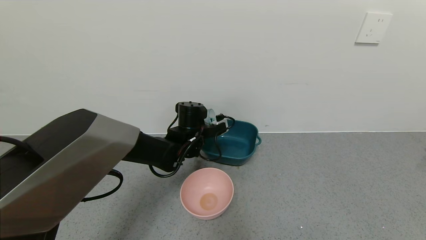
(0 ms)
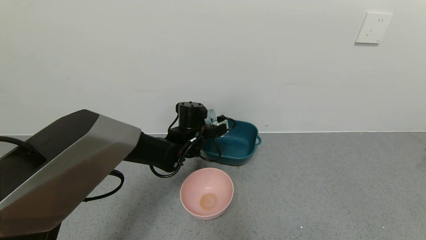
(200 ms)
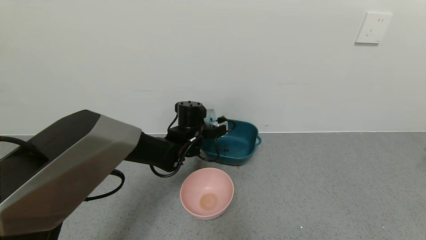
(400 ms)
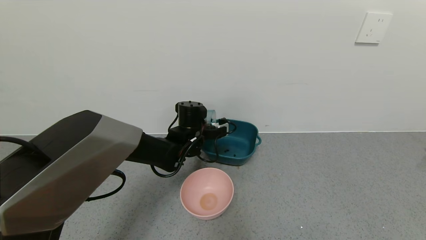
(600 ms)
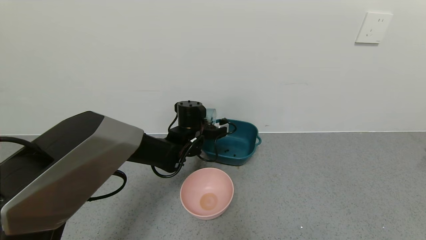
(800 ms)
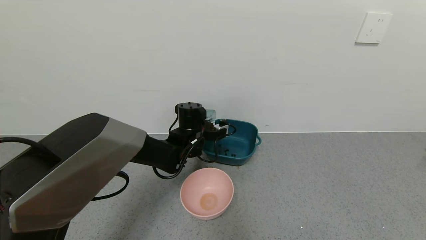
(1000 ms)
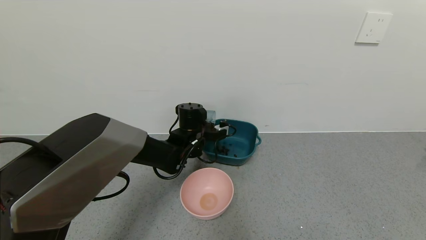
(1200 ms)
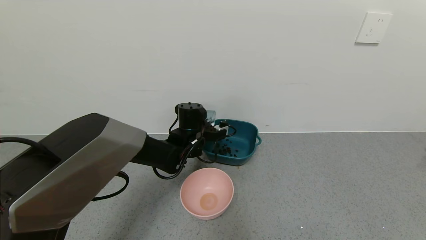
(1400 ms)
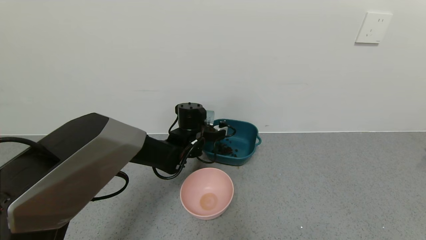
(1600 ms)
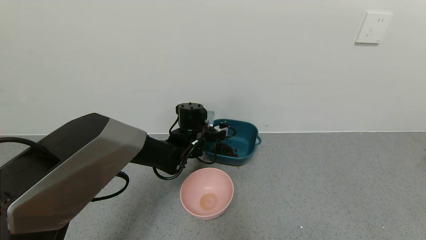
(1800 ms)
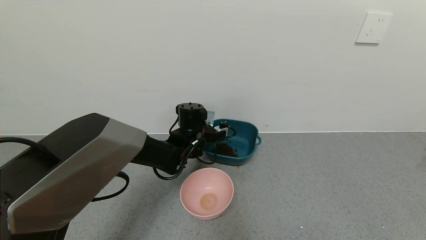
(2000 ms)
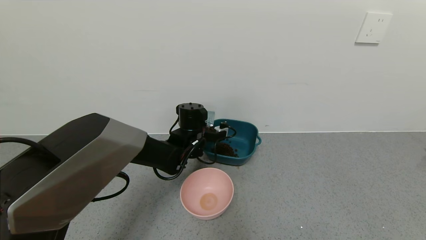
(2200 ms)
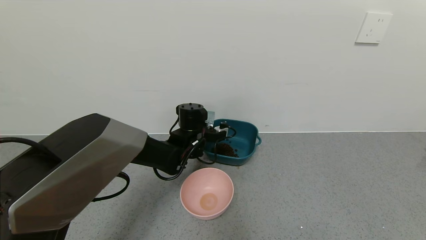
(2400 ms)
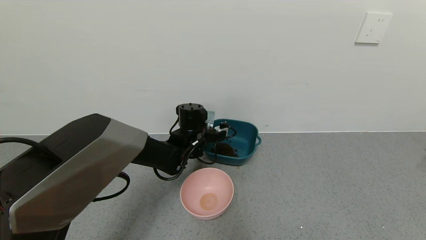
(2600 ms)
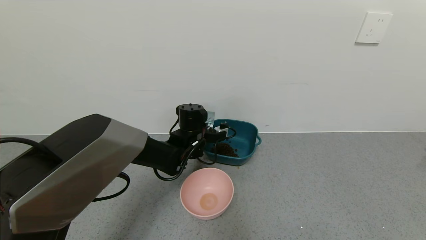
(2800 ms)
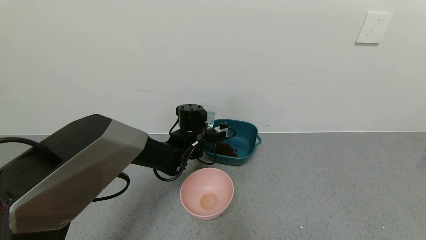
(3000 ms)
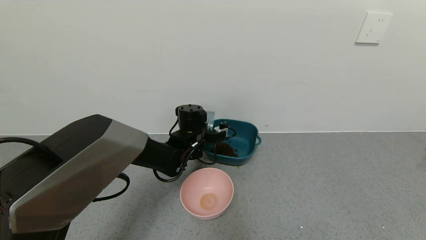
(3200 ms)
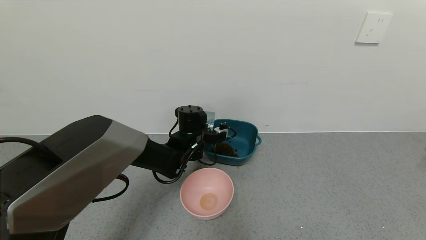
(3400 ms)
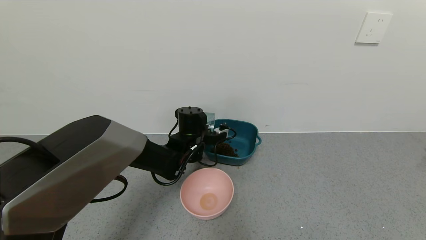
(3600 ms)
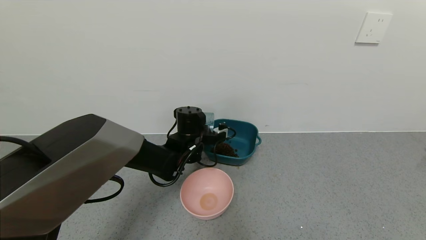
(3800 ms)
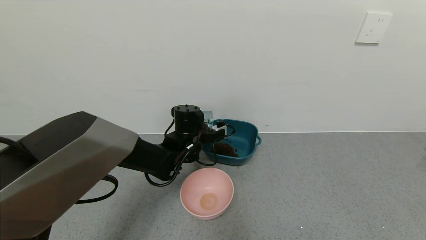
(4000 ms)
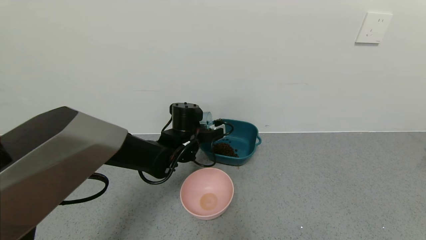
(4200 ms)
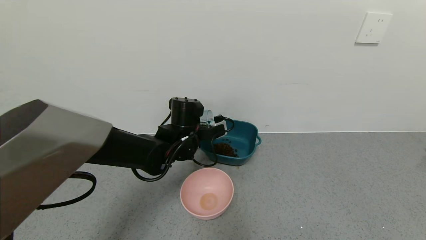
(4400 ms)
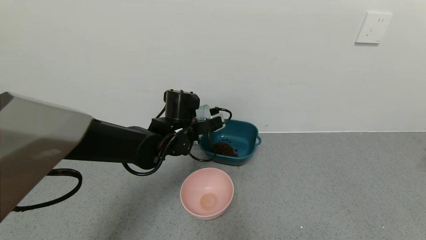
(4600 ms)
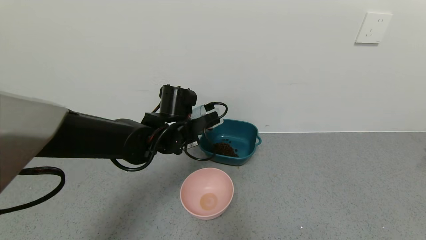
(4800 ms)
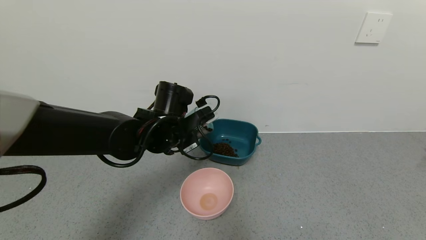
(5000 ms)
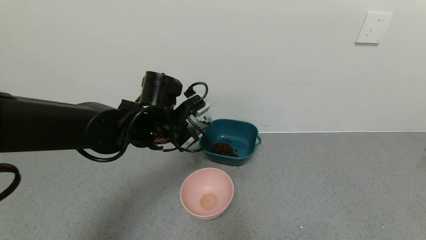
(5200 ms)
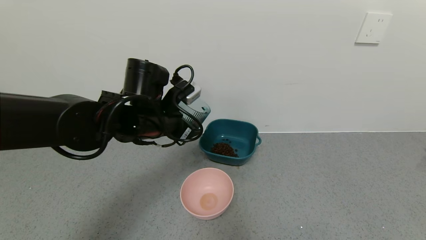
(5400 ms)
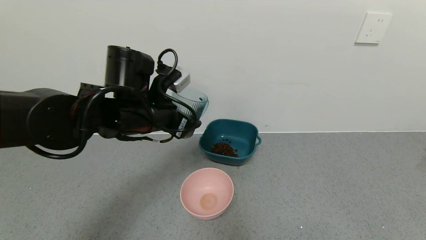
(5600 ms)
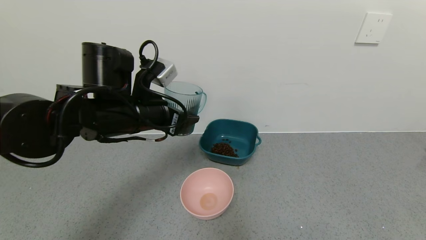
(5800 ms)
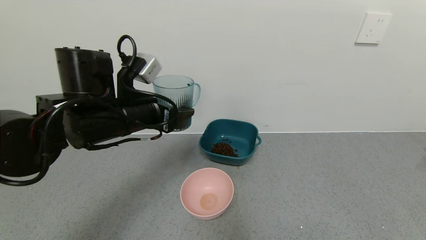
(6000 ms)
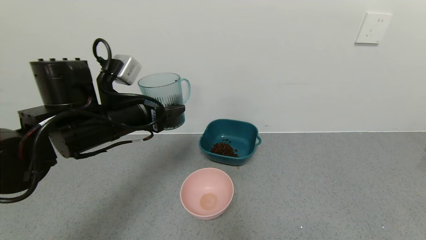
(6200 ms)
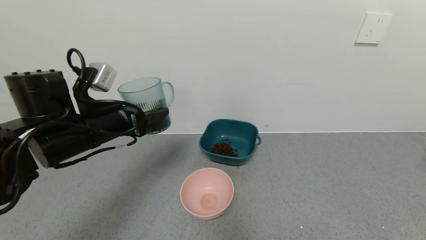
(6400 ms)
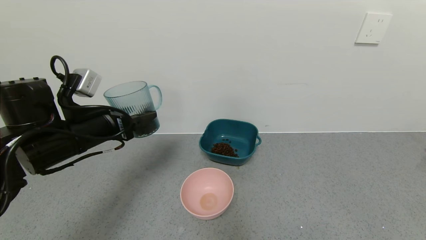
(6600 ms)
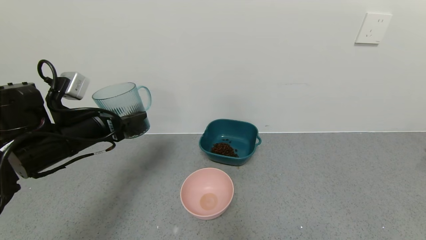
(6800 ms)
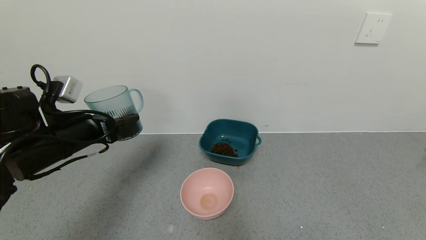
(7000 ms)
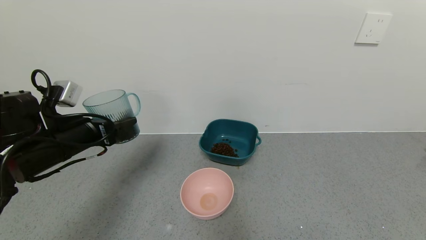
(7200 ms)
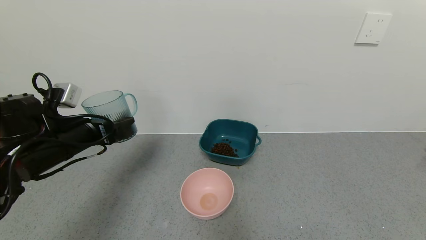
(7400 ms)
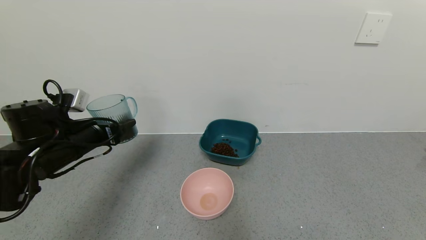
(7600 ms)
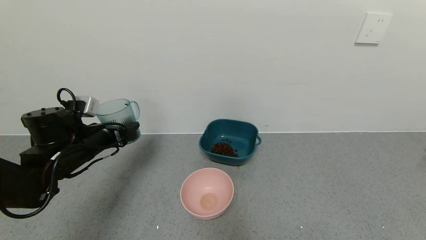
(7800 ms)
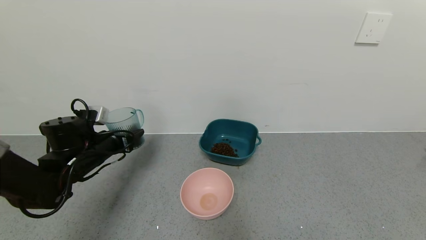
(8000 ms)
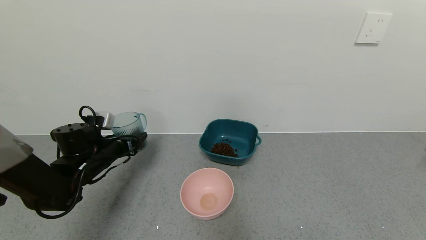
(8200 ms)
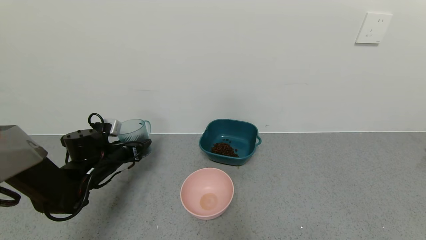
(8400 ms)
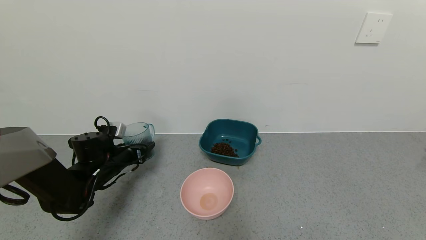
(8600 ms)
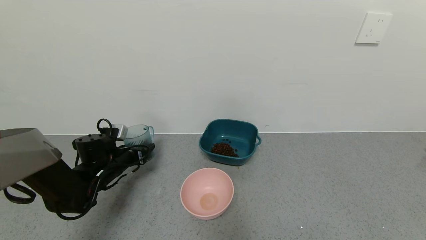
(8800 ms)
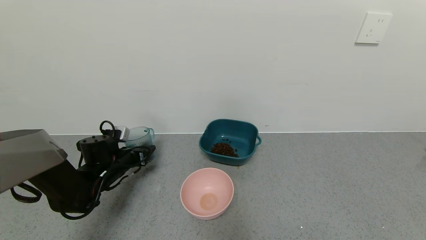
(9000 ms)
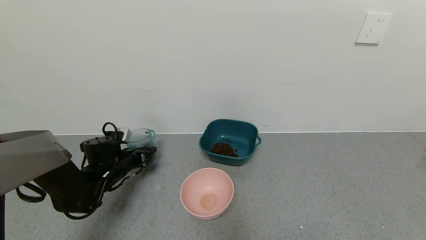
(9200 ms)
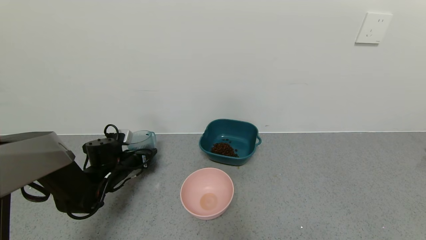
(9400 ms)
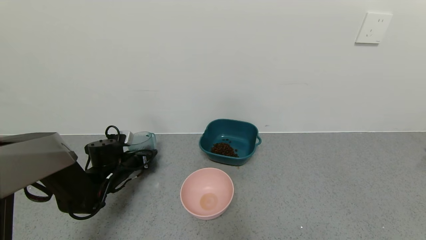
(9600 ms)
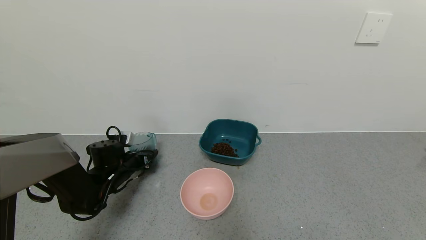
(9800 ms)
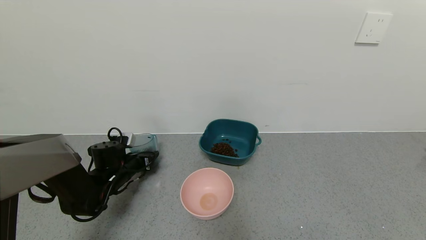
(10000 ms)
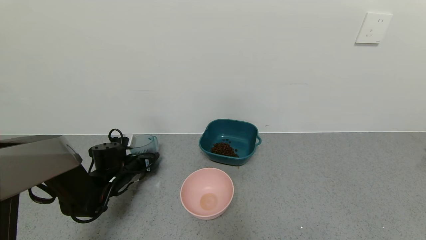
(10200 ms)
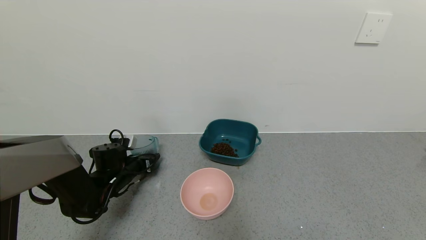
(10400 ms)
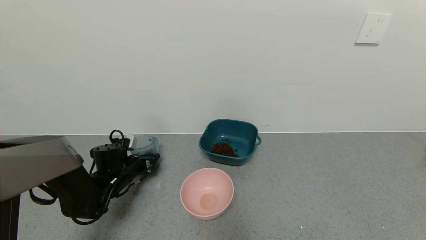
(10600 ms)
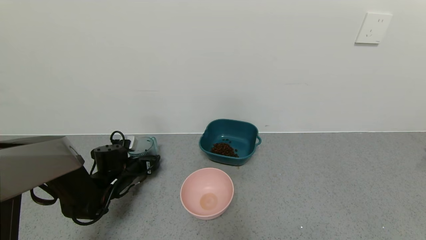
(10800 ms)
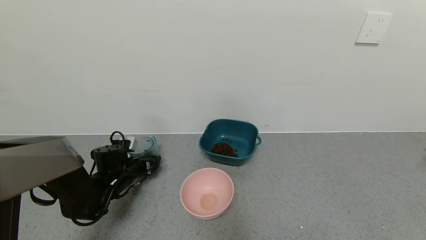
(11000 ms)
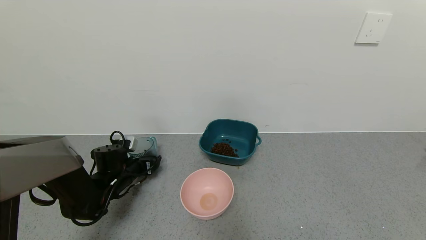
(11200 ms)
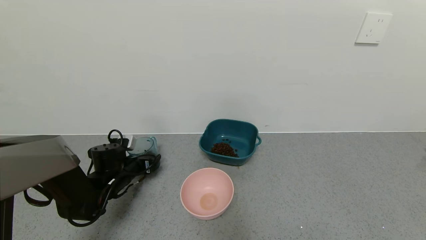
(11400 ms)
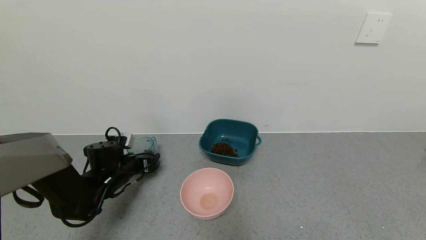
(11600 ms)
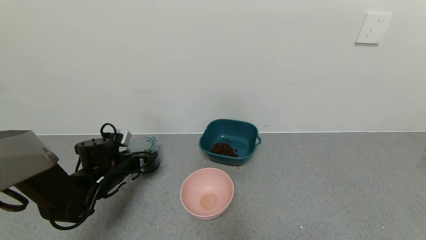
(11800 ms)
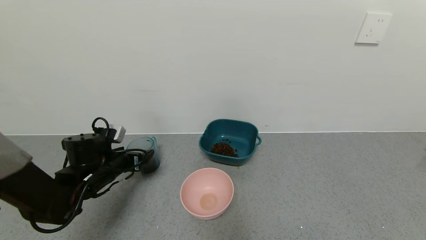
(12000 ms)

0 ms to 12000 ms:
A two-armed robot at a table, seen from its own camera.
Task of the whole recording: use a gripper to pick up the cup and pour the solid into a bowl or tray.
Step, 0 ms to 4400 ms: Pour the coffee beans into the green bowl with the left gripper.
Step, 4600 ms to 12000 ms: Place the glass cup with the left gripper.
0 ms to 1600 ms: The grippers stay close to where they were, moving slightly.
1600 ms to 3000 ms: Both grippers stay put.
3000 ms to 4400 ms: The left gripper moves about 5 cm.
4400 ms to 6000 ms: The left gripper moves upward, backward and to the left, approximately 15 cm.
6000 ms to 7600 ms: The left gripper travels to the left and downward by approximately 15 cm.
7600 ms to 9000 ms: The left gripper moves downward and forward, about 15 cm.
9000 ms to 10400 ms: There are only small adjustments of the grippers.
10400 ms to 12000 ms: The left gripper goes about 5 cm upward, and opens.

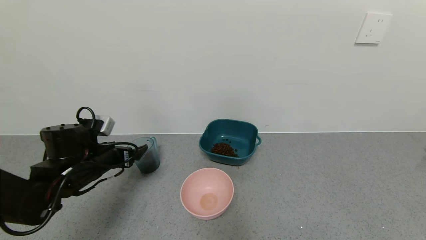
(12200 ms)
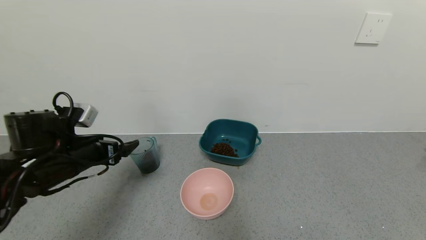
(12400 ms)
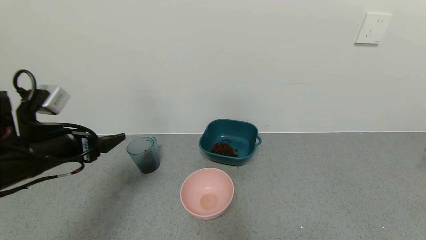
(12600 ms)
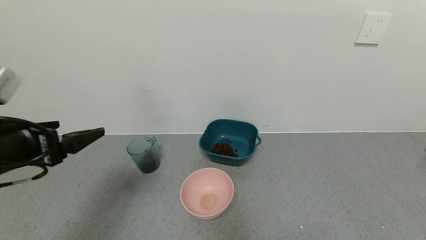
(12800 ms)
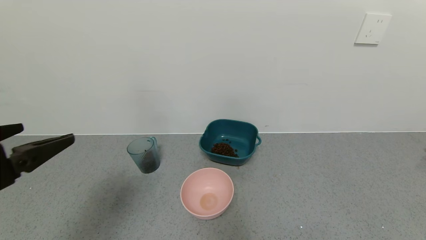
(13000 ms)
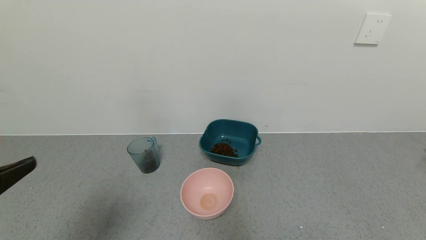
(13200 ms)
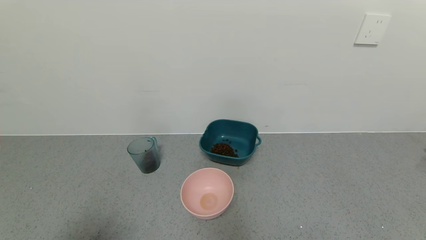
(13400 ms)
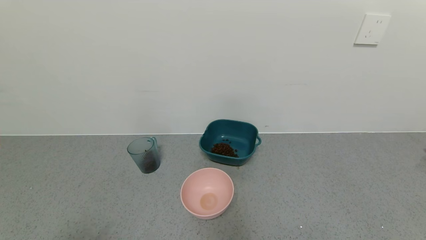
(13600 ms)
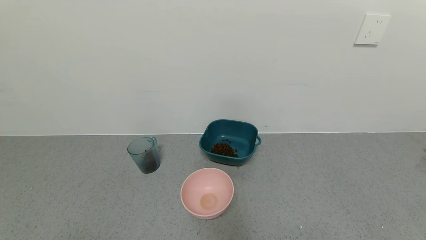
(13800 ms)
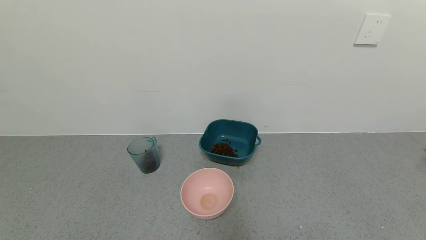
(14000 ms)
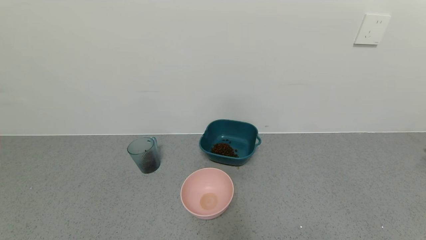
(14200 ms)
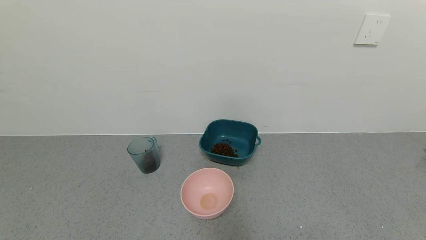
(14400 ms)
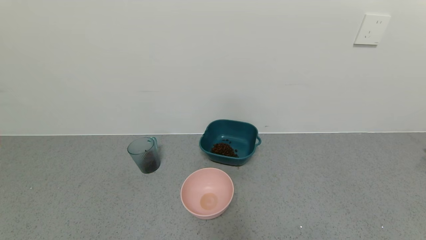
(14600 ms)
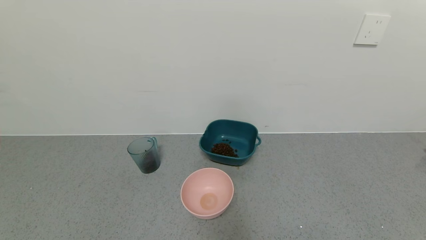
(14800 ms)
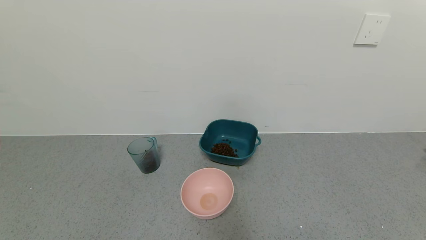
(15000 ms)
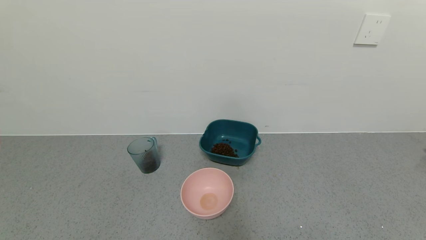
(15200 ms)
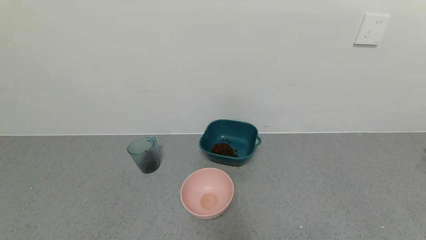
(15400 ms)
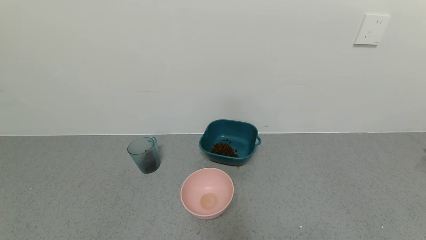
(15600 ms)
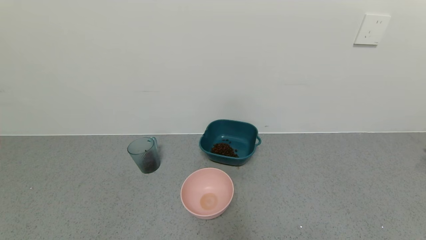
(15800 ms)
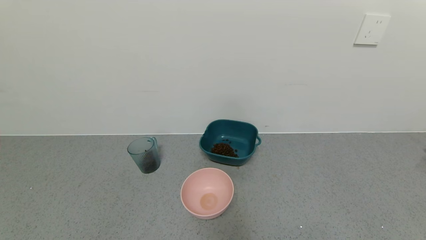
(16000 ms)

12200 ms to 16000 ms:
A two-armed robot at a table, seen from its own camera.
Task of the whole recording: use a gripper to pick up the cup and pour the solid into a bowl or tray.
12200 ms to 13400 ms: The left gripper heads backward and upward, covering roughly 30 cm.
13400 ms to 14800 ms: The left gripper shifts some 15 cm downward and backward.
